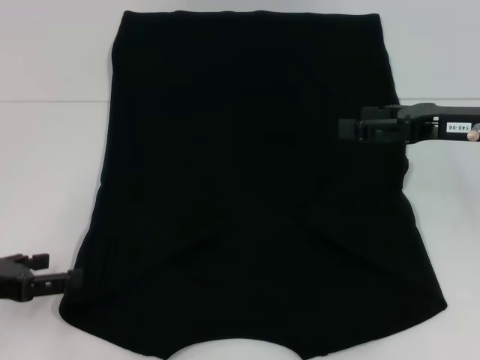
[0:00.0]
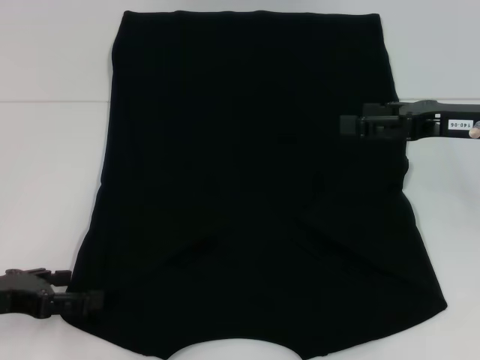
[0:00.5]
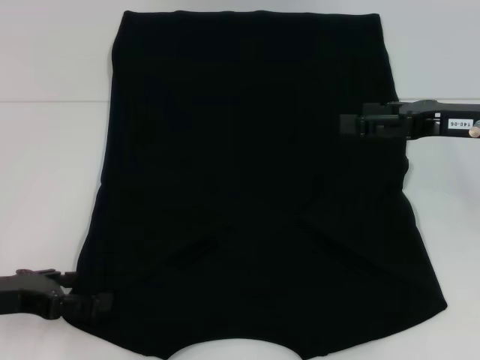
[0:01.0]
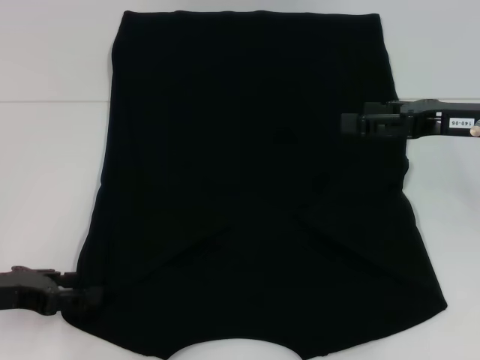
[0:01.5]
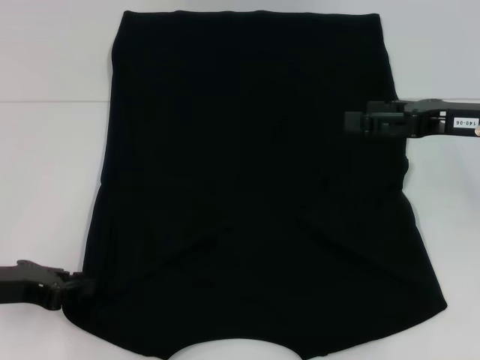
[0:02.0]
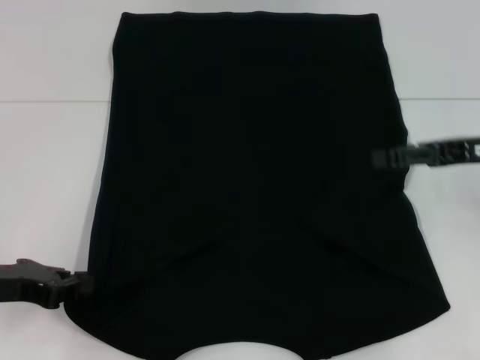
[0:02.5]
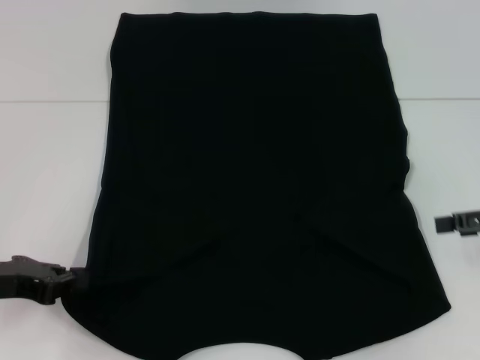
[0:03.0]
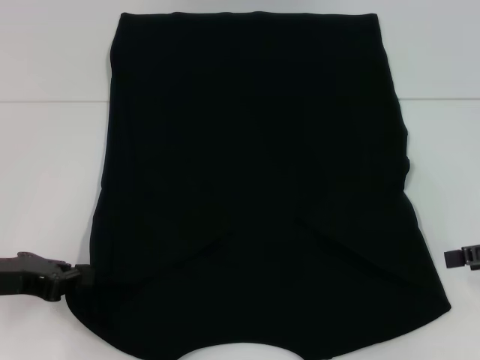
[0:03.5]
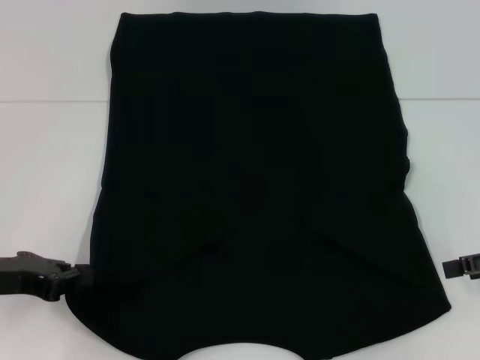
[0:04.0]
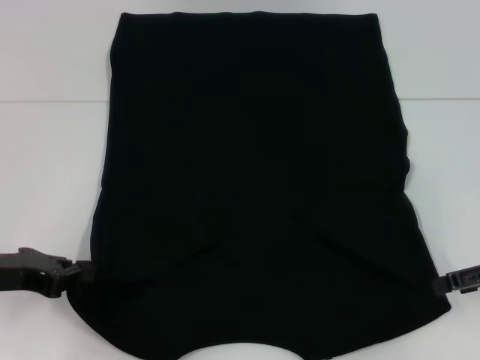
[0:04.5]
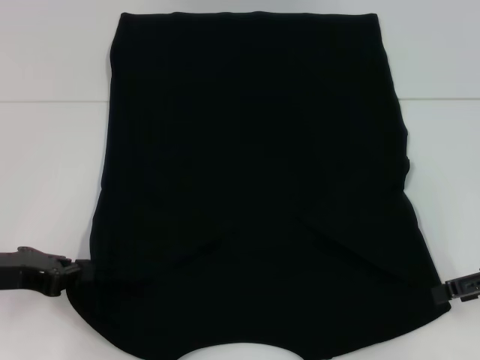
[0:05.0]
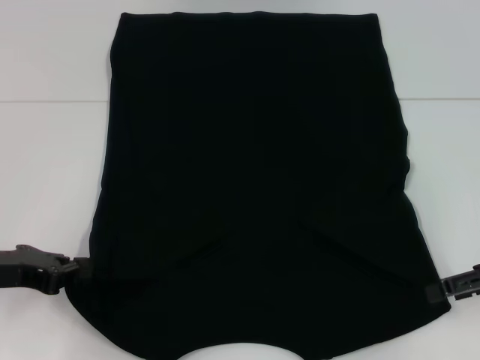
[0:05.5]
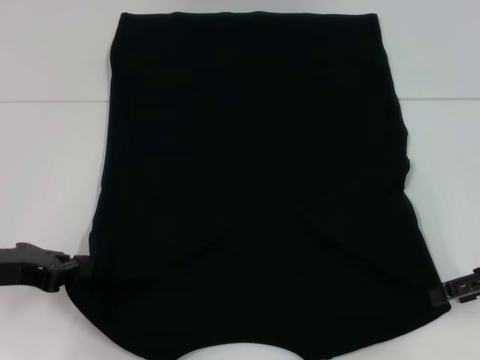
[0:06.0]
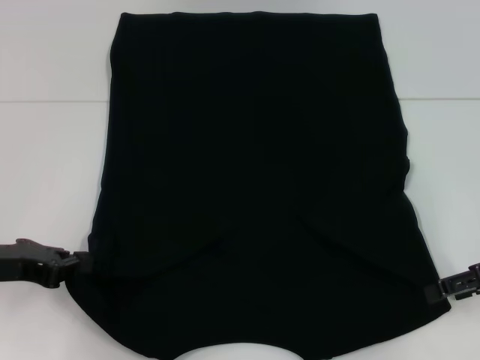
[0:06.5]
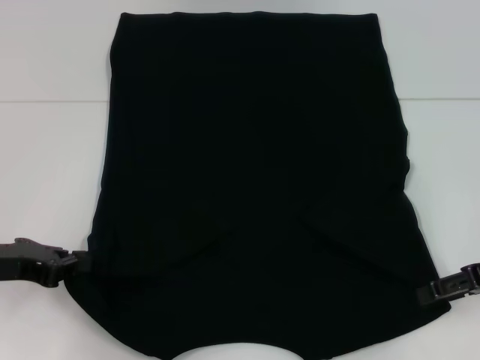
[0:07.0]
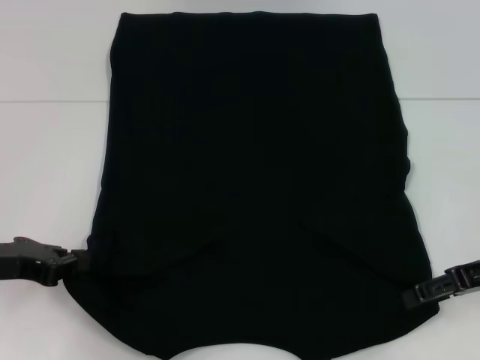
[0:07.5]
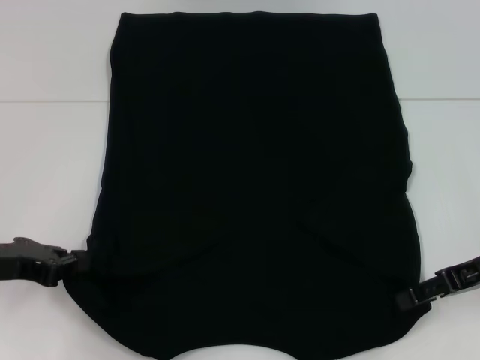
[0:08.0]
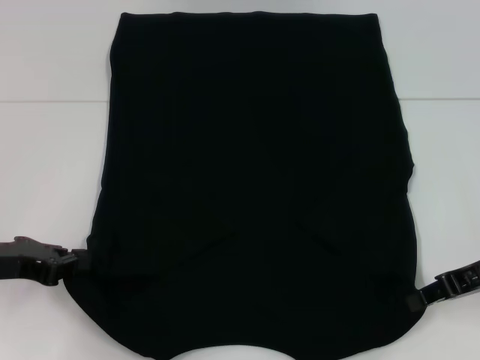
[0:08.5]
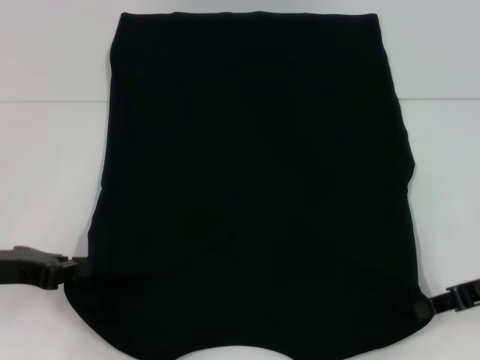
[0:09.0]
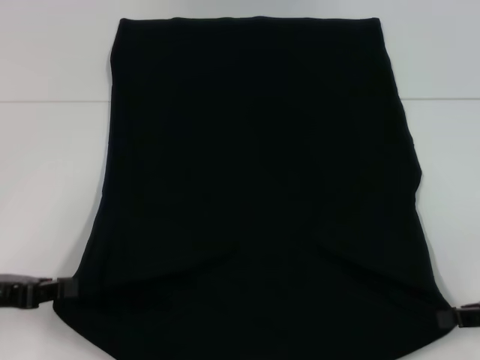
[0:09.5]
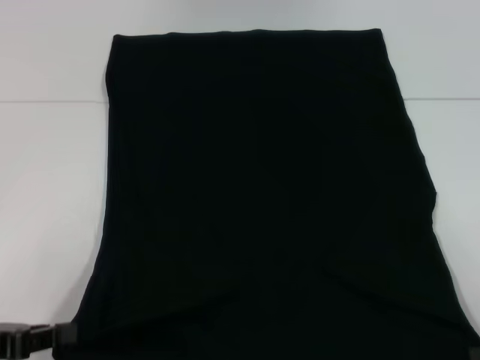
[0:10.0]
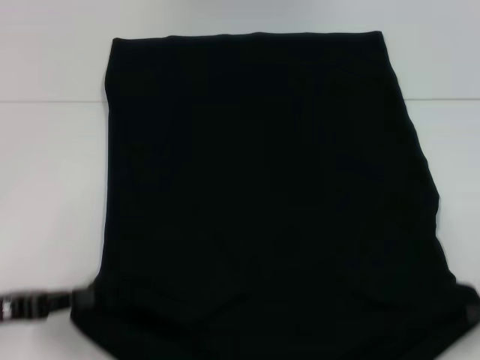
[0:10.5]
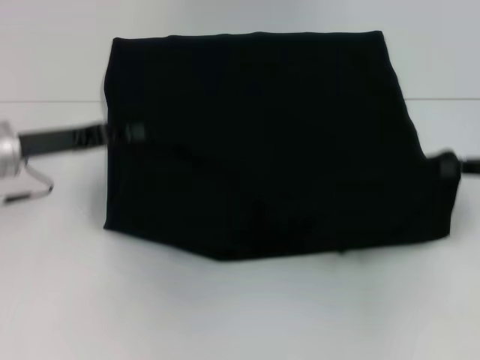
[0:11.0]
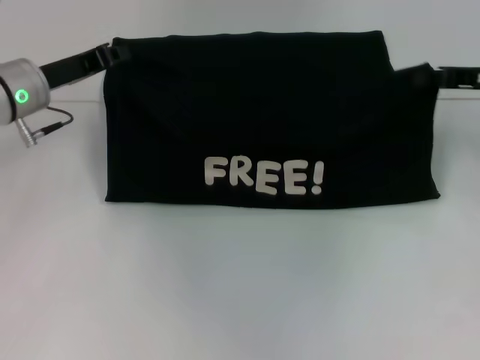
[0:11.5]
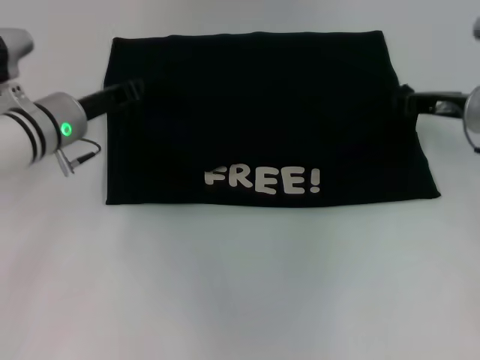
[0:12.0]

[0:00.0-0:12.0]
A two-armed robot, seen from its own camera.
Step, 0:00.0 to 0:02.5: Grab the bottom left corner with your left hand.
Step, 0:03.0 to 0:09.0: Grab the bottom right corner with your right hand.
0:00.0 to 0:02.0: The left gripper closes up.
0:02.0 to 0:04.0: The right gripper heads to the right and backward, covering roughly 10 cm.
0:04.0 to 0:06.0: The grippers move only a little.
0:06.0 to 0:08.0: There are only small adjustments of the grippers.
0:08.0 to 0:10.0: The left gripper is displaced backward by roughly 10 cm; the right gripper is displaced backward and to the right by approximately 15 cm, and closes up.
0:10.0 to 0:12.0: The right gripper heads forward and to the left, covering about 25 cm. Meanwhile the left gripper shifts about 25 cm forward and to the right.

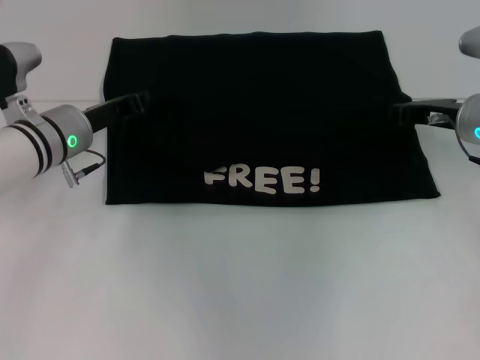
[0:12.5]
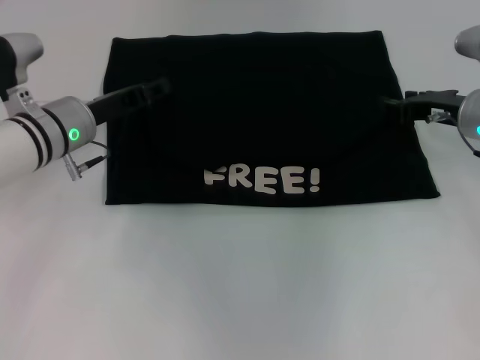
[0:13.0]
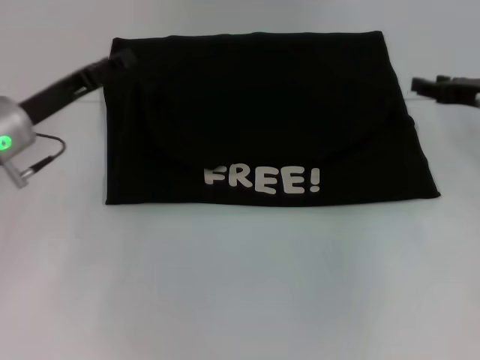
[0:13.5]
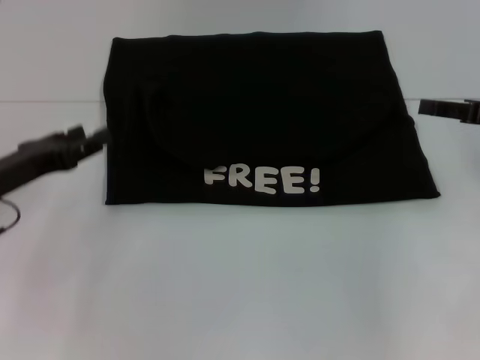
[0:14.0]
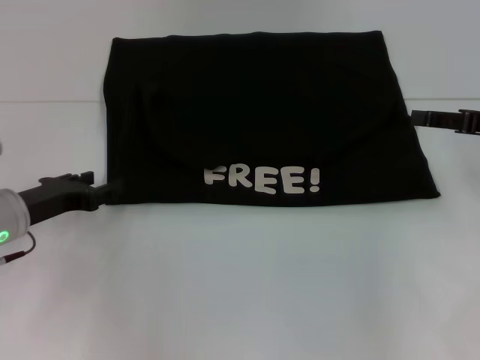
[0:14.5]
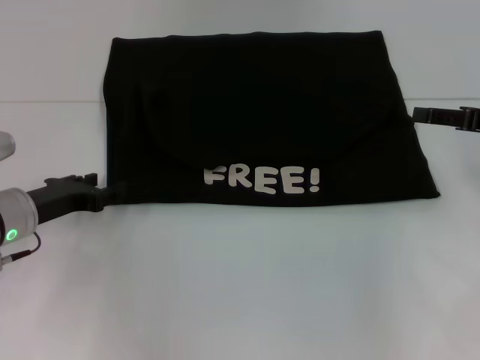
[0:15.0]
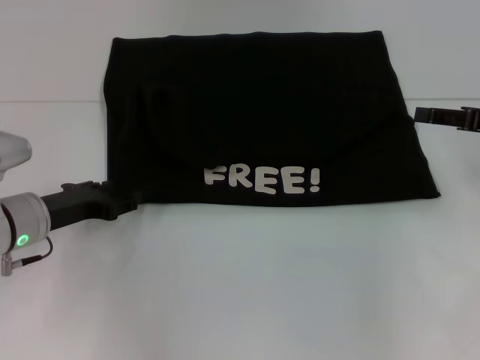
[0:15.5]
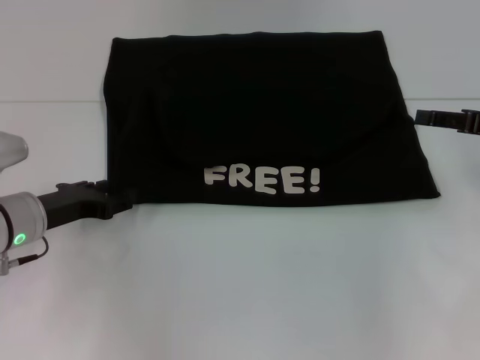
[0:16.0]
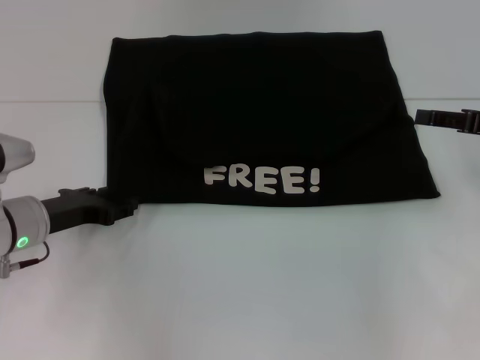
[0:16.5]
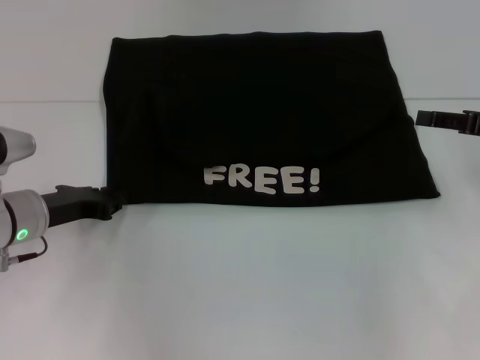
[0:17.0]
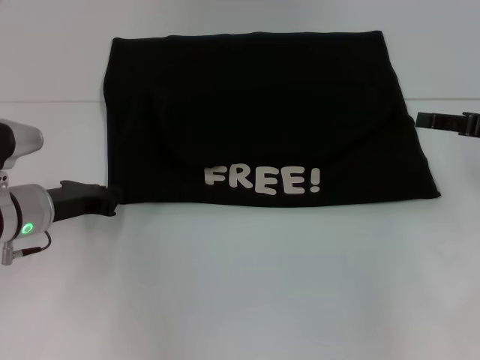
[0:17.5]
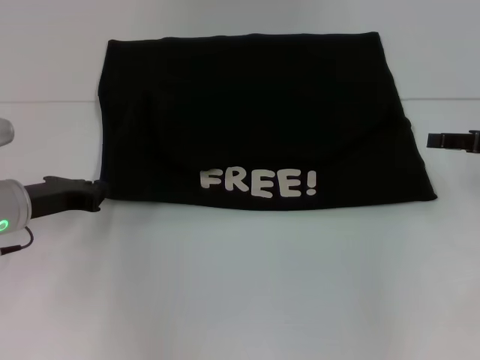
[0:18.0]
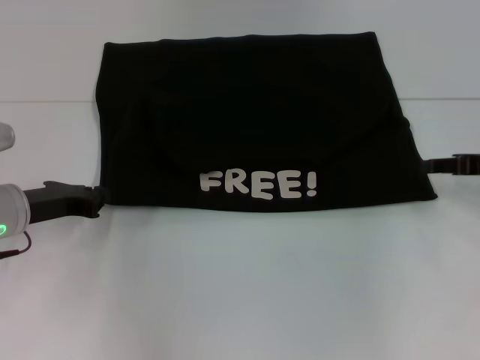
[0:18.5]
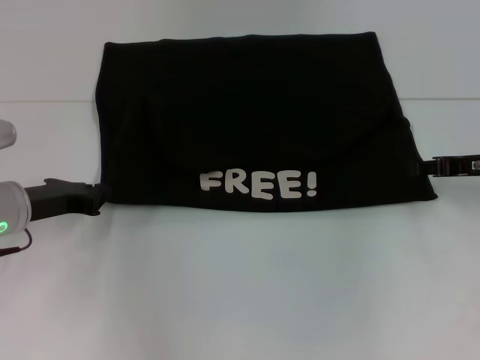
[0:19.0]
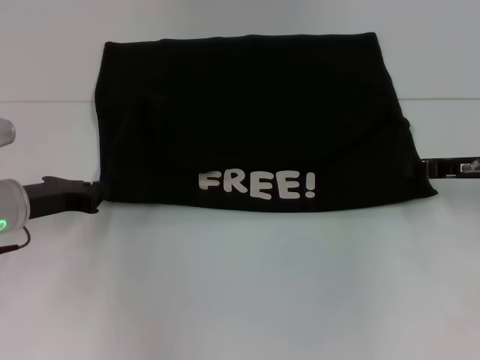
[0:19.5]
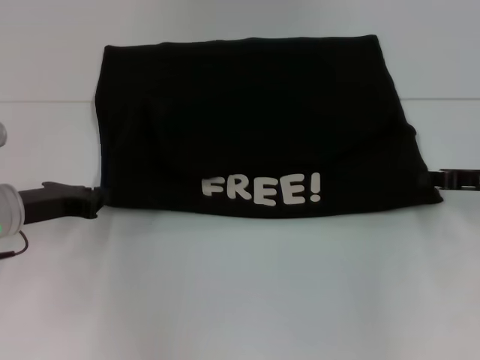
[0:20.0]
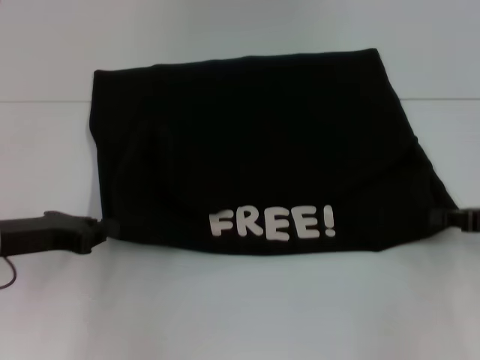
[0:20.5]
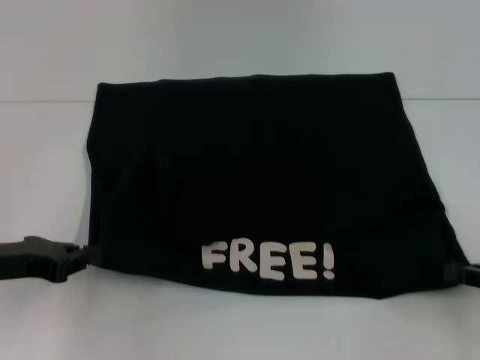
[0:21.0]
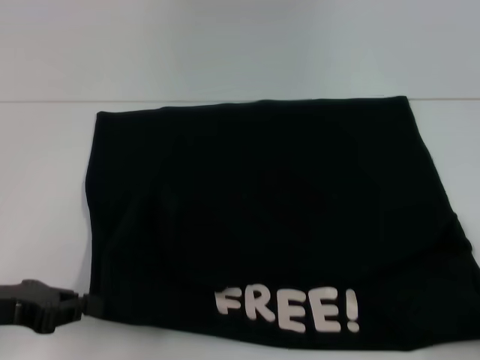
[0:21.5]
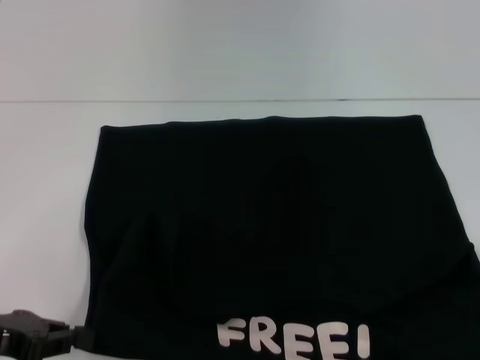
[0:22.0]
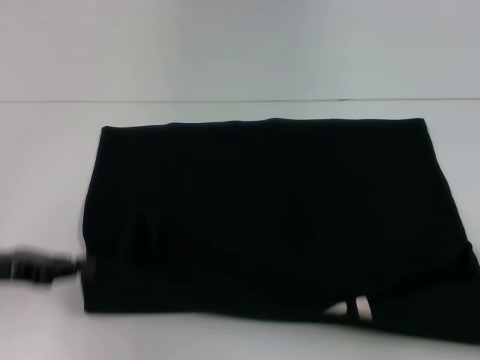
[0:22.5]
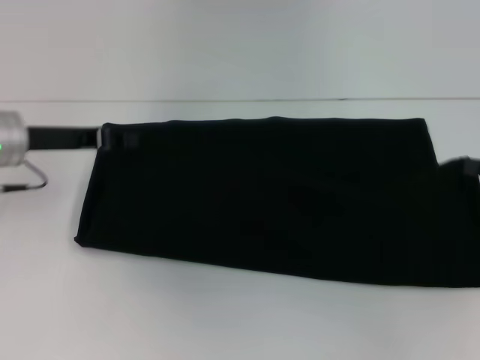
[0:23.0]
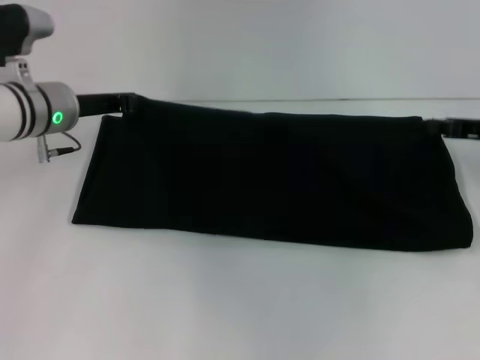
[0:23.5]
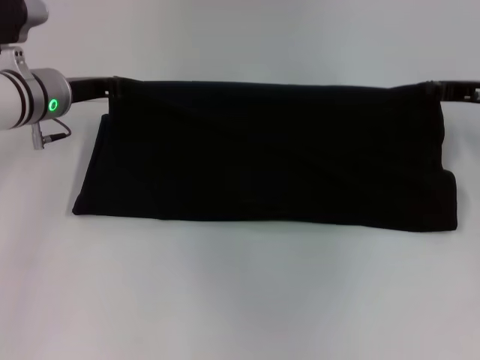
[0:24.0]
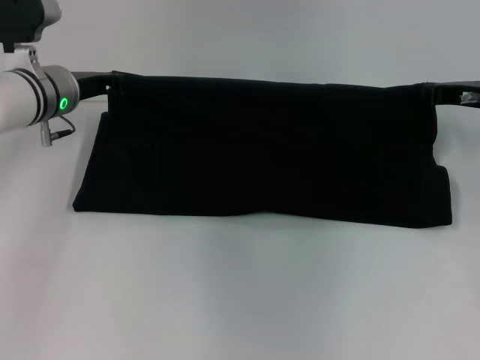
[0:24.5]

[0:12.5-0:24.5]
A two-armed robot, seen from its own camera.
Step, 0:13.0 to 0:22.0: Pull the clothes with your left hand.
Step, 0:13.0 to 0:22.0: Pull the clothes with your right hand.
0:12.5 to 0:14.5: The right gripper is displaced to the right and backward by about 10 cm, and opens; the left gripper travels backward and to the left by approximately 10 cm, and opens up.
0:14.5 to 0:16.5: The grippers make only small movements.
0:16.5 to 0:18.5: The left gripper closes.
0:18.5 to 0:20.5: The right gripper heads backward, covering approximately 5 cm, and closes up.
0:20.5 to 0:22.5: The right gripper shifts roughly 15 cm backward and to the right.
0:22.5 to 0:24.5: The right gripper moves forward and to the left, some 25 cm; the left gripper moves forward and to the right, approximately 20 cm.

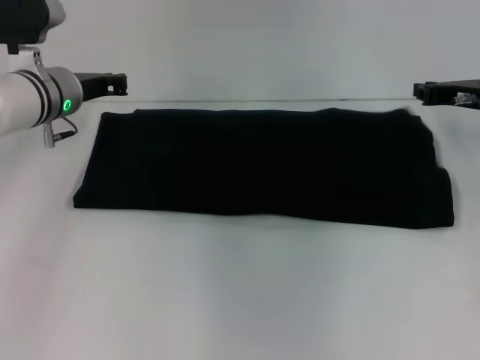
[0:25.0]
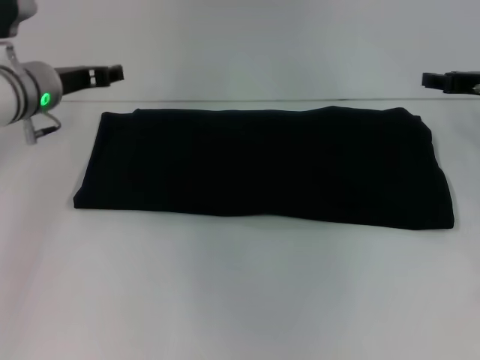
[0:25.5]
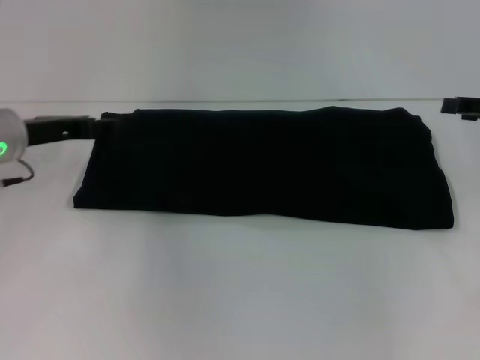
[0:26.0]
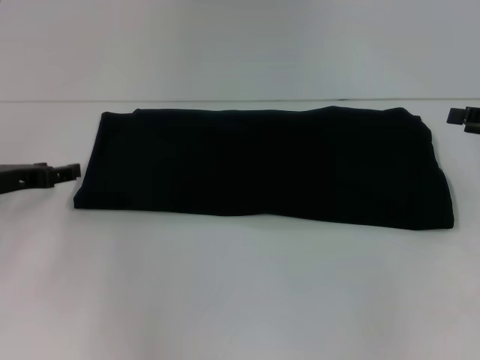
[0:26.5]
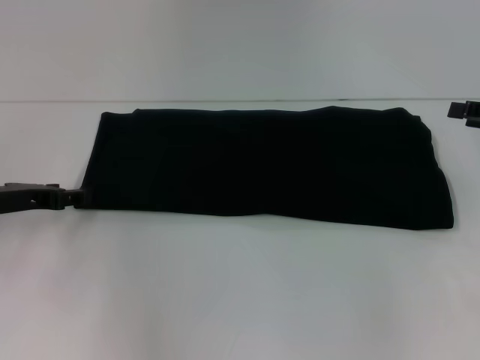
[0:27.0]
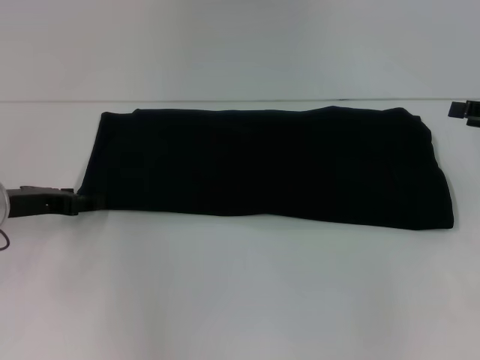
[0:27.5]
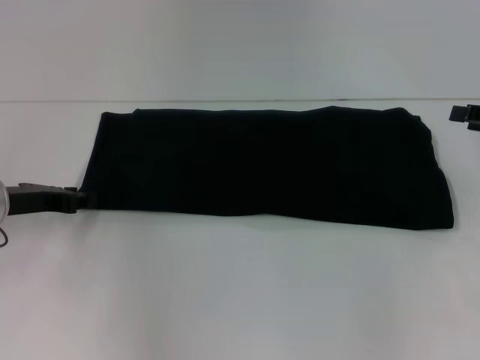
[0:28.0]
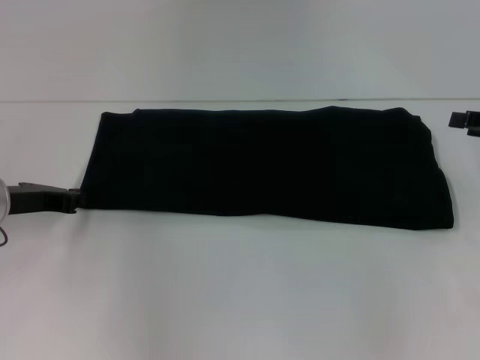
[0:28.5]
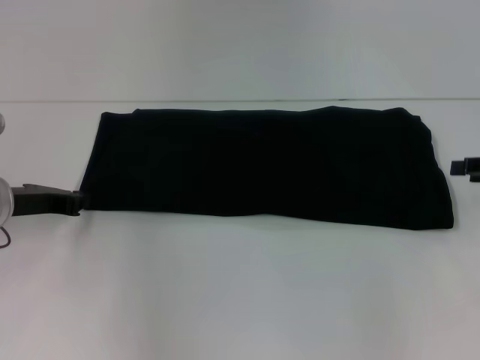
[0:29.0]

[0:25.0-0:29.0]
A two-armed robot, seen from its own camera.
0:25.0 to 0:27.0: The right gripper travels to the right and backward by about 10 cm, and opens, while the left gripper goes about 15 cm backward and to the left, and opens up.
0:27.0 to 0:29.0: The left gripper closes its fingers.
